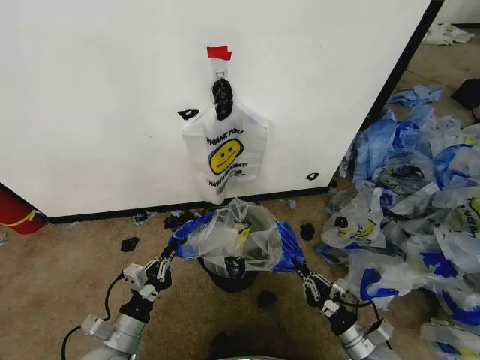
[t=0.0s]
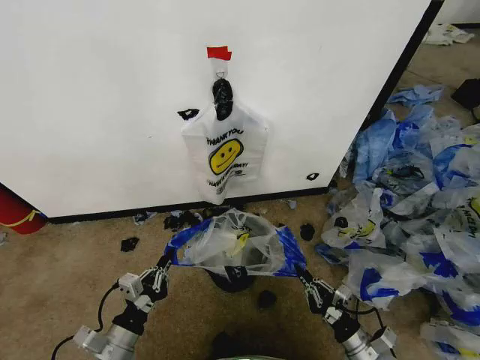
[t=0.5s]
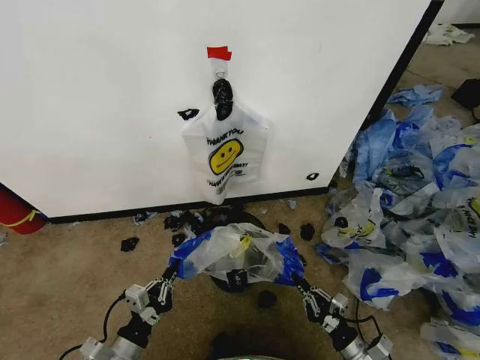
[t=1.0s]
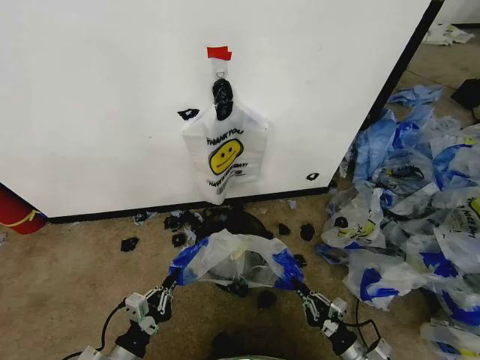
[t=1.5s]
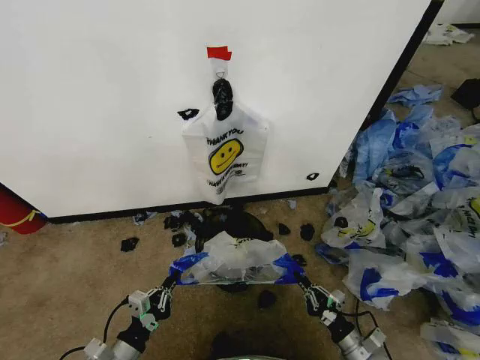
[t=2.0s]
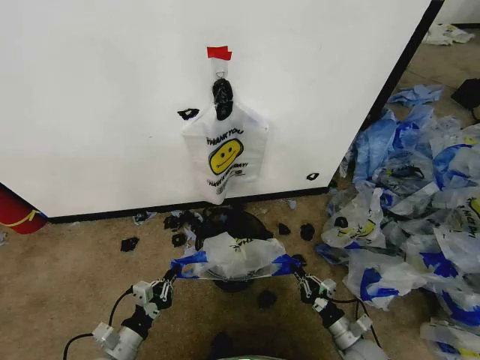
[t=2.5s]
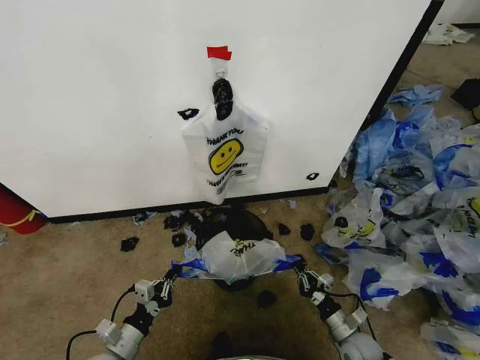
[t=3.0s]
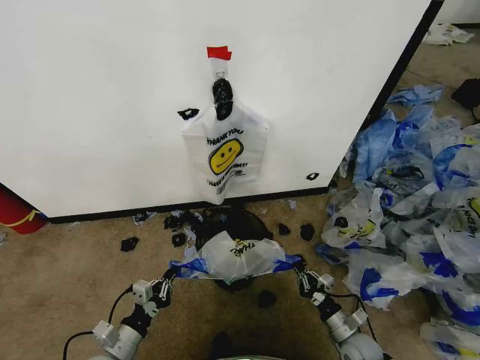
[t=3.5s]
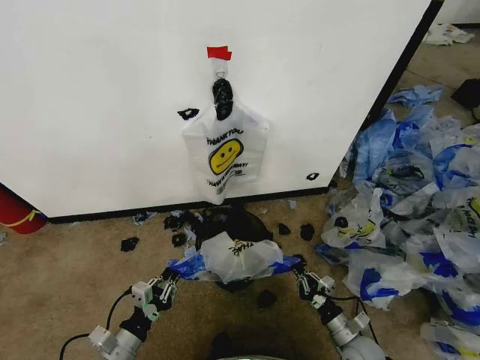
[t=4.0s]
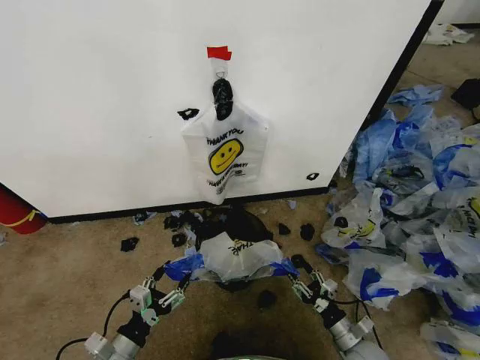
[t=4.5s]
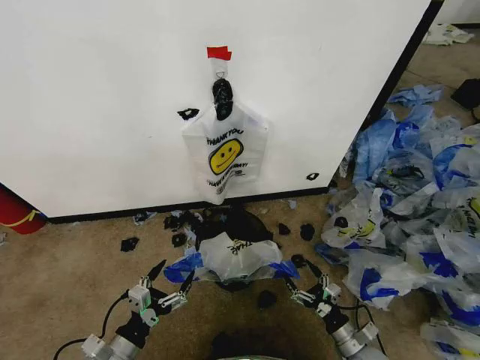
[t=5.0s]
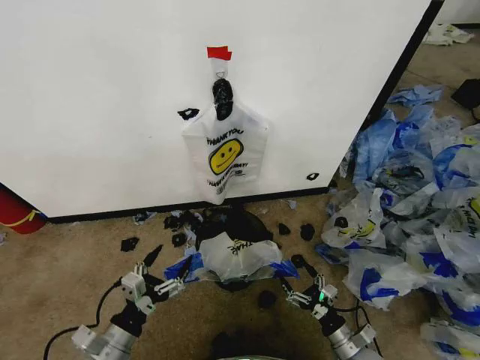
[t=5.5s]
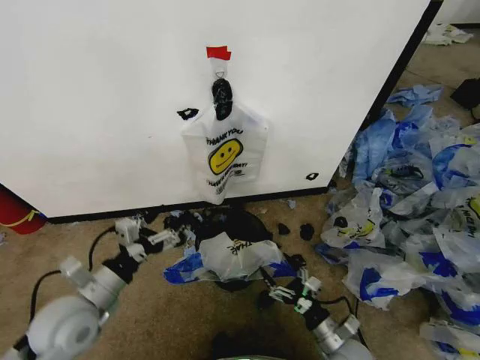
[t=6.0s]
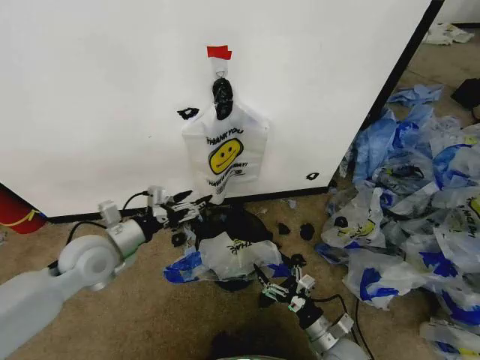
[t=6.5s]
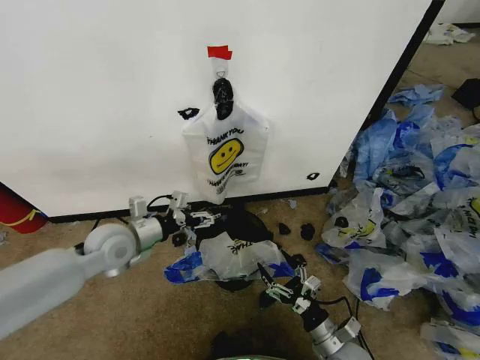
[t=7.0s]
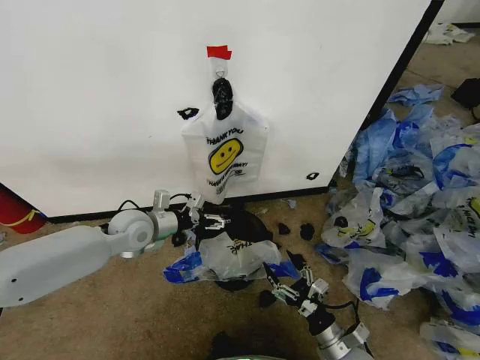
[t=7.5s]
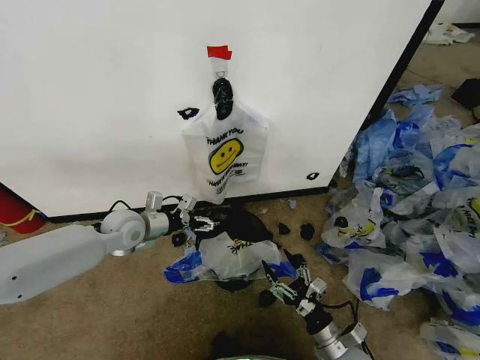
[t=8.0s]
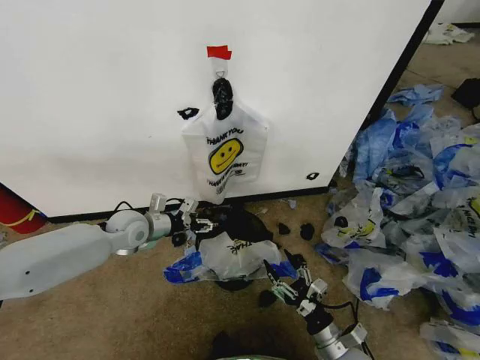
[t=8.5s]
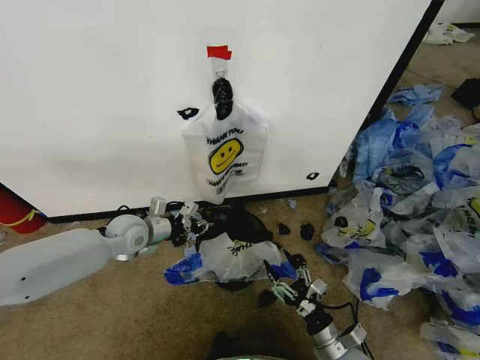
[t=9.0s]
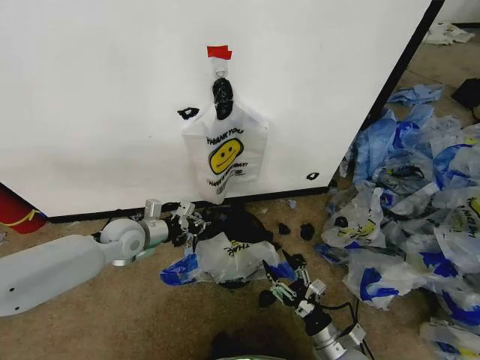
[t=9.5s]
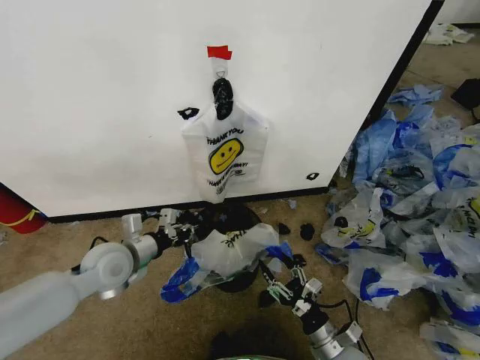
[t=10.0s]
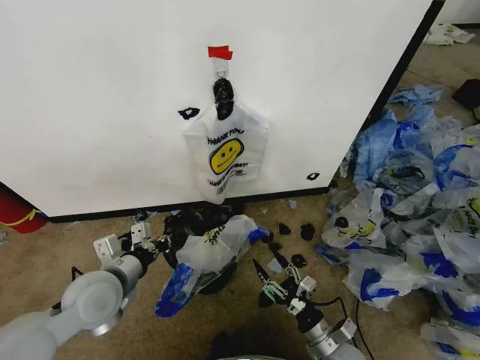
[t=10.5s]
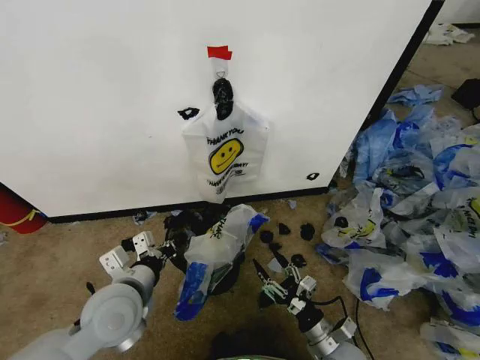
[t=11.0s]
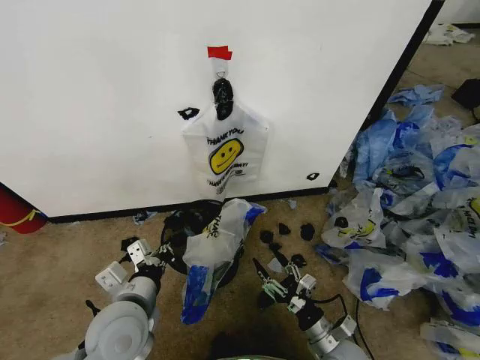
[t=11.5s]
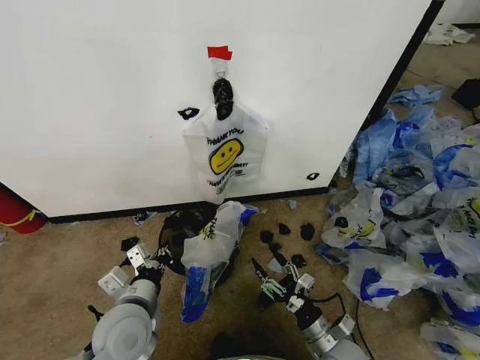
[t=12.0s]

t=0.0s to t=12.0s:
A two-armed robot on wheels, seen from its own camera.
Task of the whole recording: Pick up the garbage bag from the wall and place it over the trash bin.
t=0.0s to t=2.0s: The right gripper heads downward, covering some 5 cm, while the left gripper changes place by roughly 5 cm.
t=2.0s to t=4.0s: The grippers make only small movements.
t=4.0s to t=6.0s: The left gripper is displaced upward and forward by some 15 cm, and opens, while the right gripper heads to the left, covering roughly 5 cm, and opens its fingers.
t=6.0s to t=8.0s: The left gripper is displaced forward by roughly 20 cm.
t=8.0s to t=10.0s: The left gripper moves backward, some 10 cm, and closes.
t=10.0s to t=12.0s: The left gripper goes about 15 cm backward and to the right.

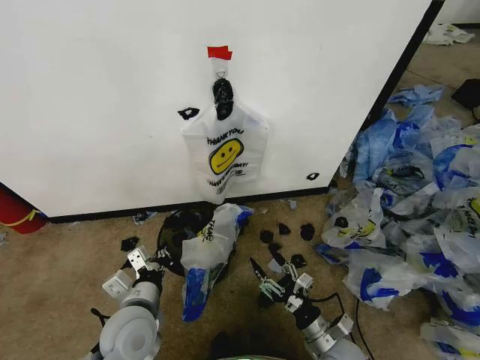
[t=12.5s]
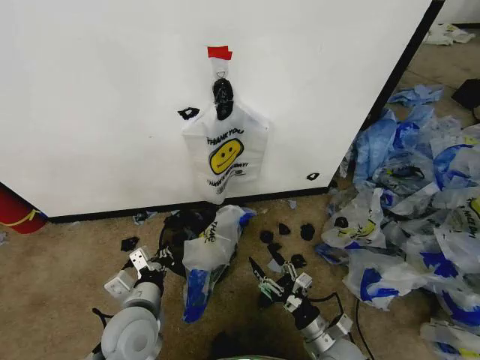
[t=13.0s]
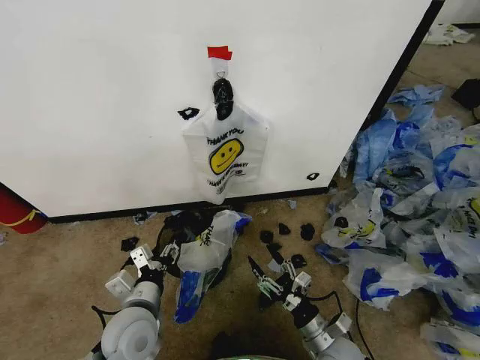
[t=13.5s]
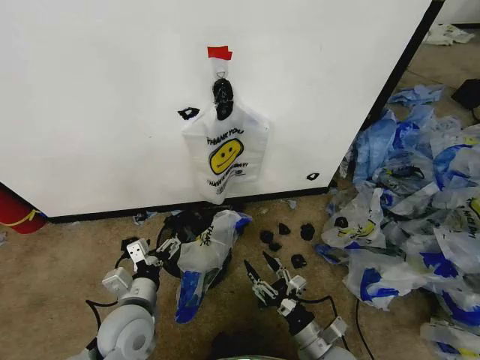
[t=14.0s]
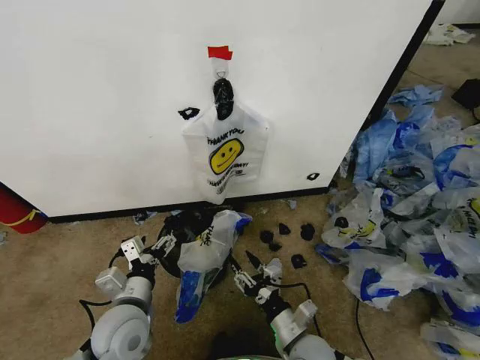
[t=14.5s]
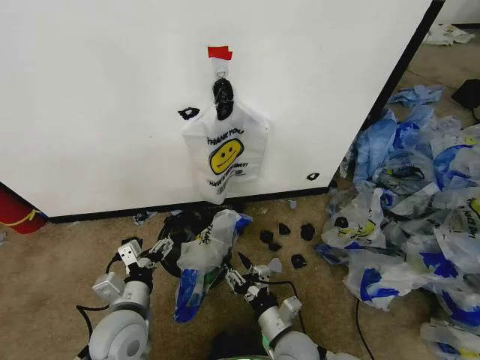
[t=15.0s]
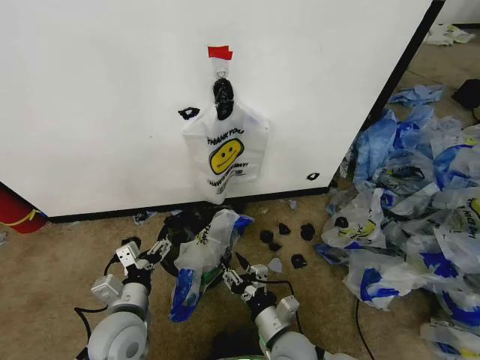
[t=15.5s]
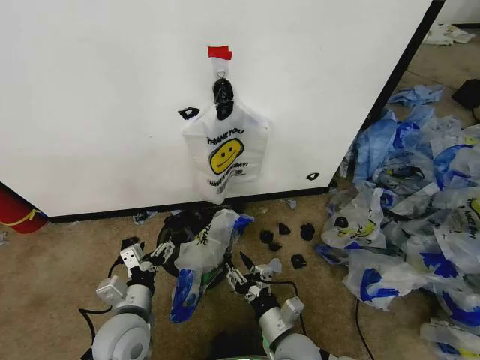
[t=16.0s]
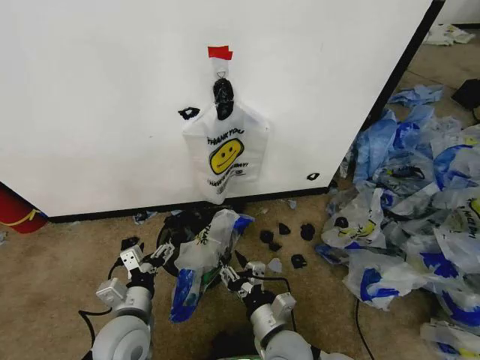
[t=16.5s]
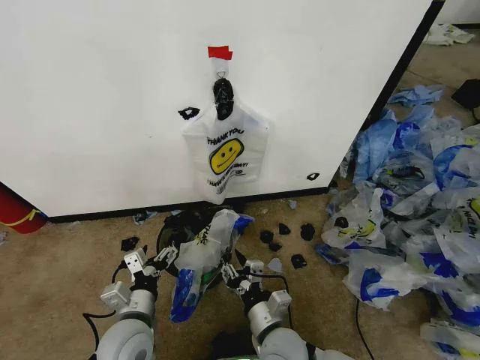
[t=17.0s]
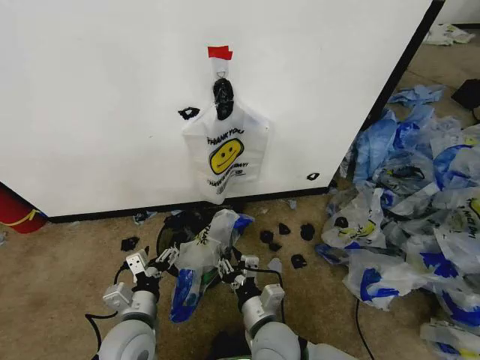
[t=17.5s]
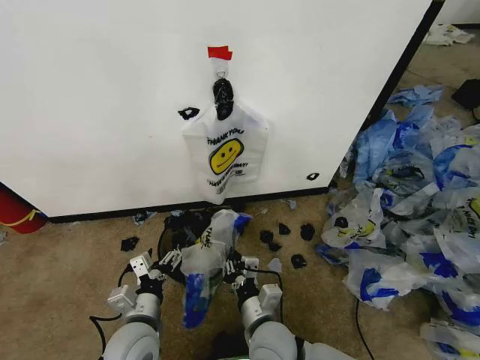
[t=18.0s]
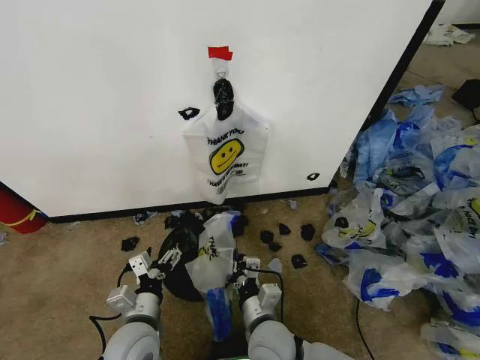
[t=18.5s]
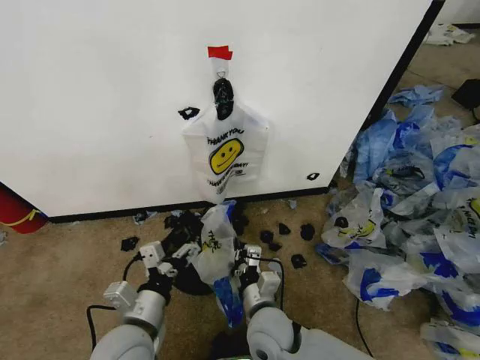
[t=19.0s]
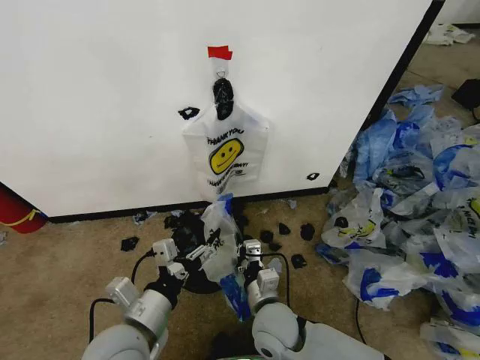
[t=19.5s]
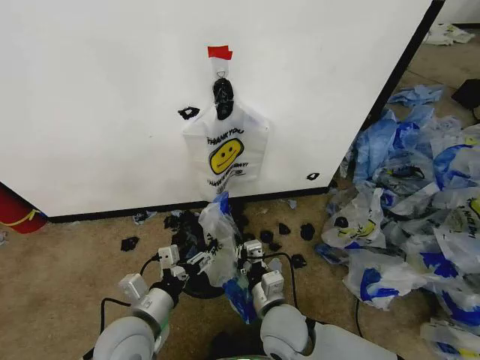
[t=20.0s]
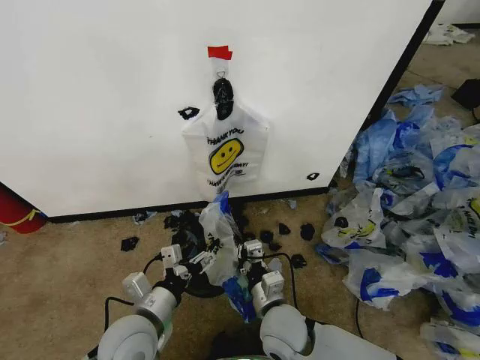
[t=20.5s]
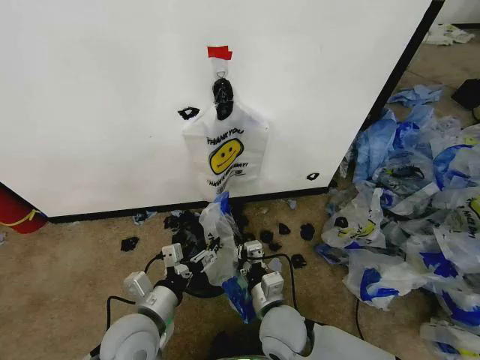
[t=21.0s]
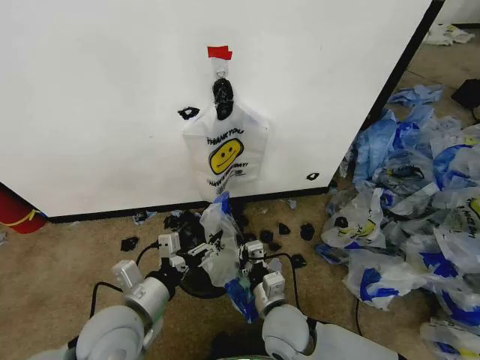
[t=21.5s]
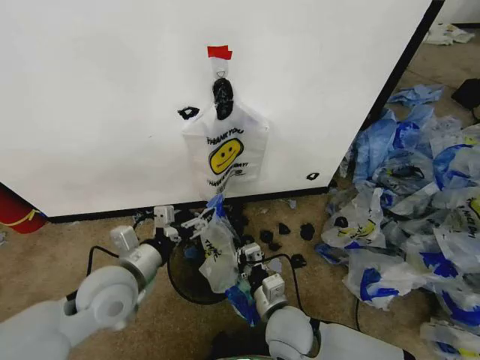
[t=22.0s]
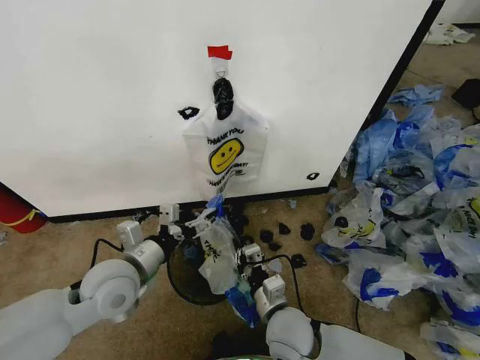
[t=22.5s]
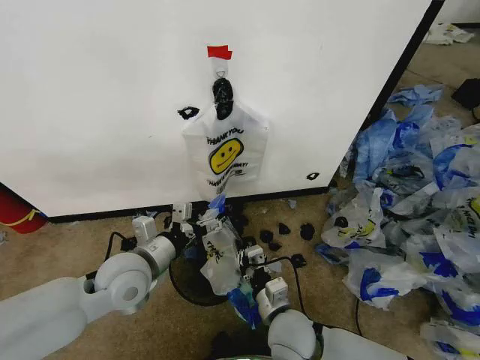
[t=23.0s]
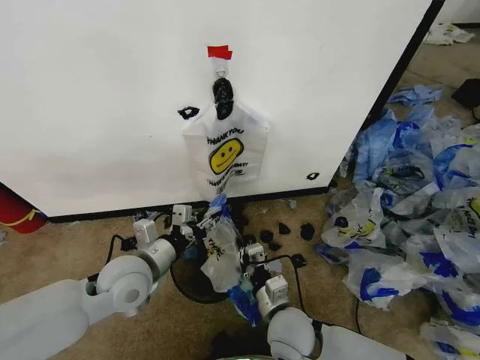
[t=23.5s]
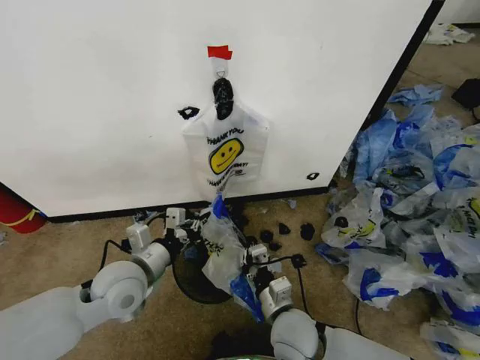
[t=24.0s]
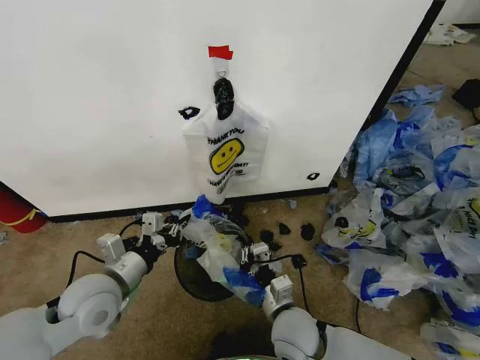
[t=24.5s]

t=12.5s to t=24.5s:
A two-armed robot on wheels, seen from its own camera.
Task of the whole recording: Pick up the garbage bag from the wall and place it over the trash bin.
t=12.5s to t=14.5s: The right gripper is displaced to the left by roughly 10 cm. Meanwhile the left gripper opens.
t=14.5s to t=16.5s: The right gripper travels to the left by some 5 cm.
t=16.5s to t=18.5s: The right gripper closes its fingers.
t=18.5s to t=20.5s: The left gripper shifts some 5 cm upward.
t=20.5s to t=22.5s: The left gripper shifts some 10 cm forward and upward.
t=22.5s to t=24.5s: The left gripper closes.

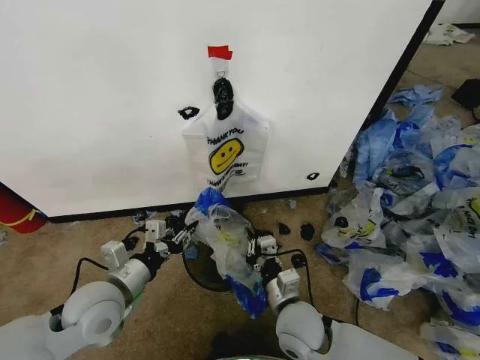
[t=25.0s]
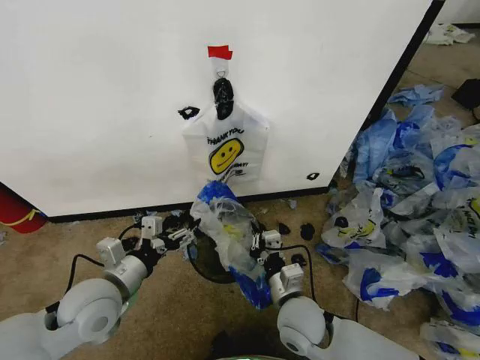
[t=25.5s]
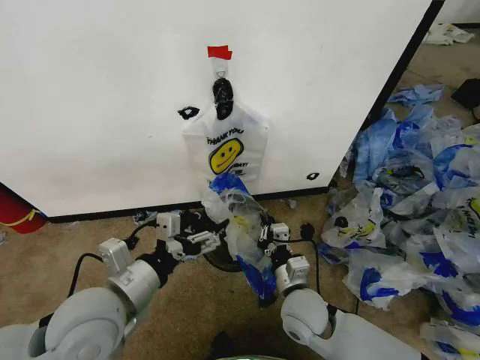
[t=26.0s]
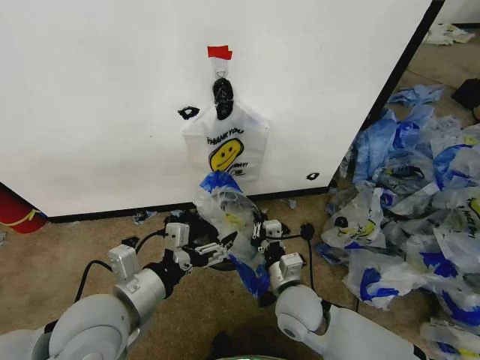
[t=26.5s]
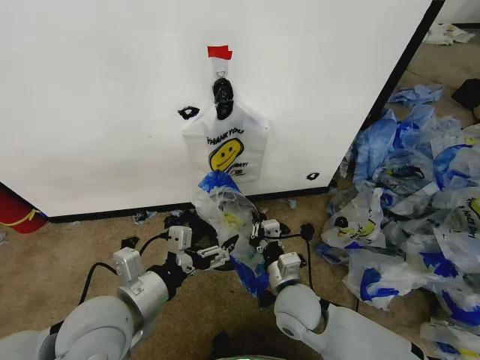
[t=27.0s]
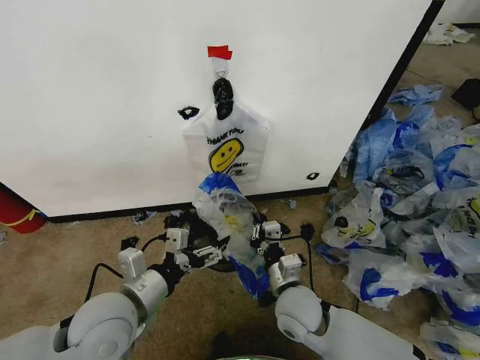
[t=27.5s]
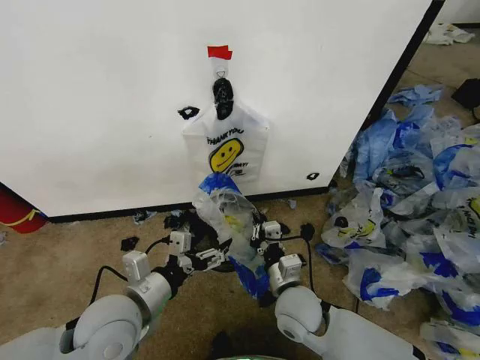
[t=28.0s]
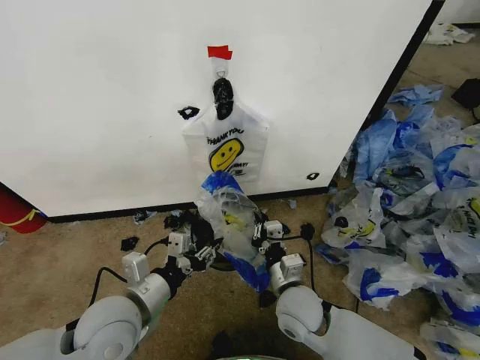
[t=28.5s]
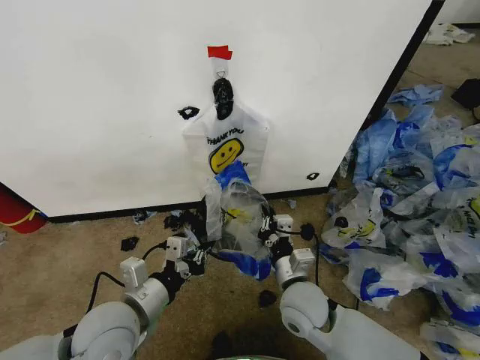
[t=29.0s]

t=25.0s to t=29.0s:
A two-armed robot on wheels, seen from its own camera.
Task of the whole recording: Pick up the garbage bag from the wall and place it over the trash bin.
t=25.0s to t=27.0s: The left gripper is displaced upward, to the right and backward by some 10 cm, and opens up.
t=27.0s to t=29.0s: The left gripper closes.
